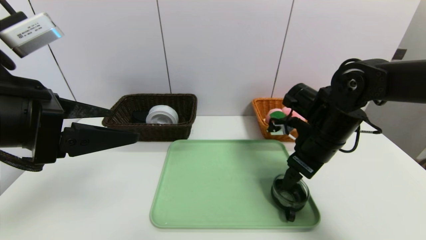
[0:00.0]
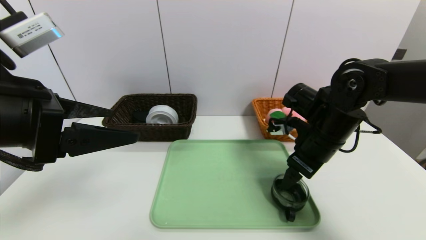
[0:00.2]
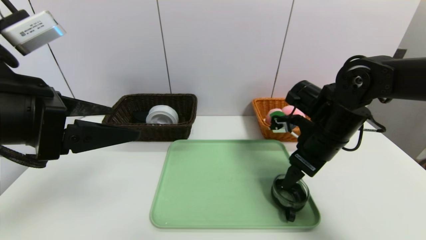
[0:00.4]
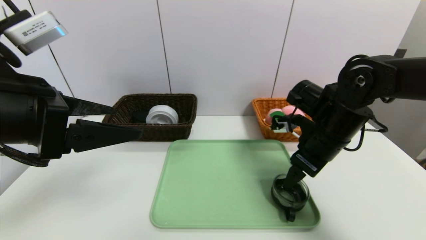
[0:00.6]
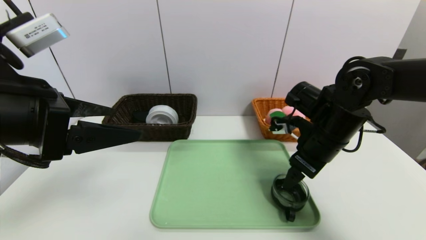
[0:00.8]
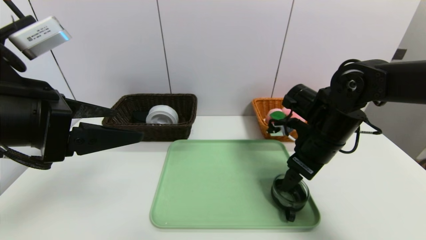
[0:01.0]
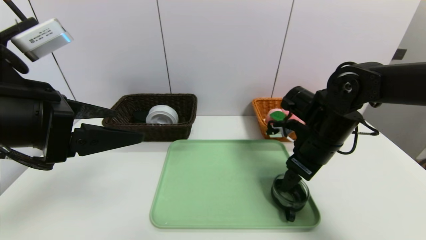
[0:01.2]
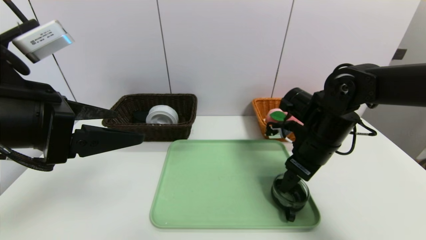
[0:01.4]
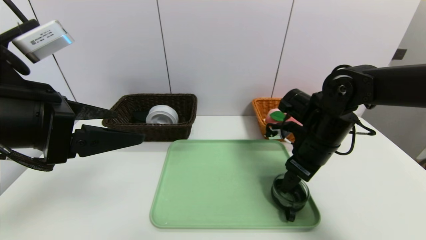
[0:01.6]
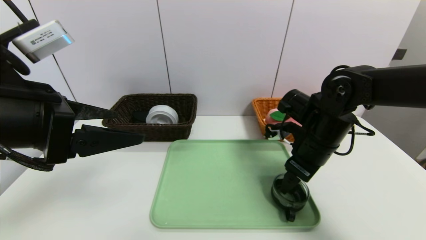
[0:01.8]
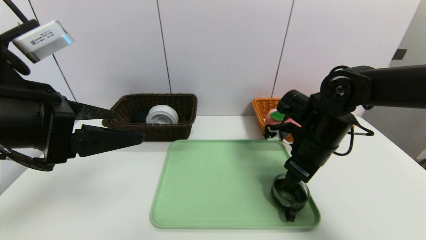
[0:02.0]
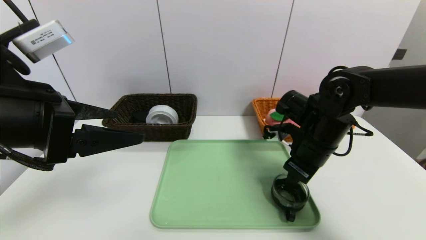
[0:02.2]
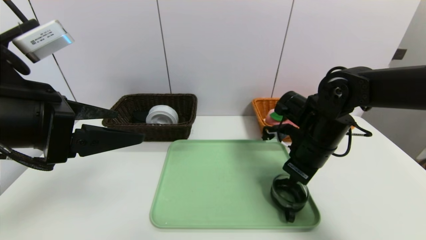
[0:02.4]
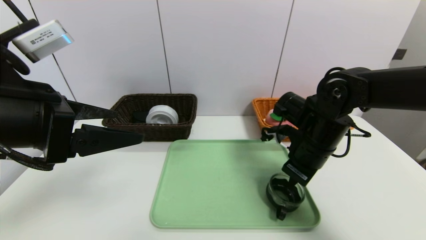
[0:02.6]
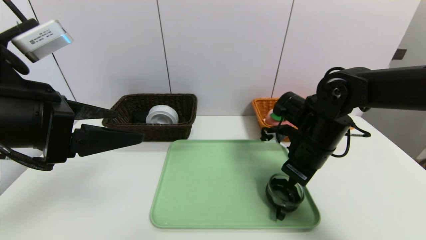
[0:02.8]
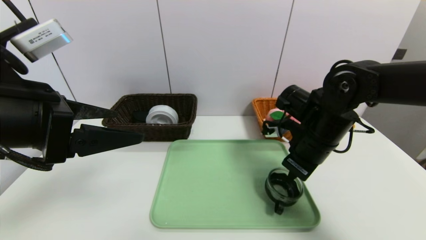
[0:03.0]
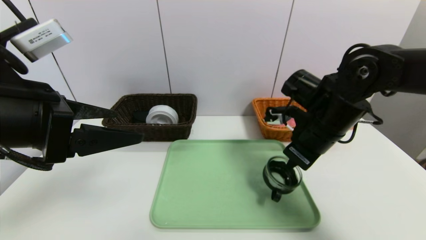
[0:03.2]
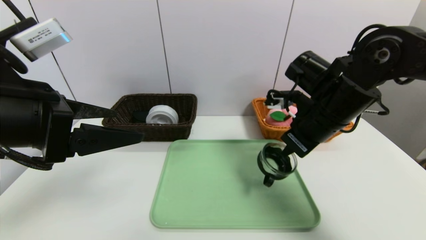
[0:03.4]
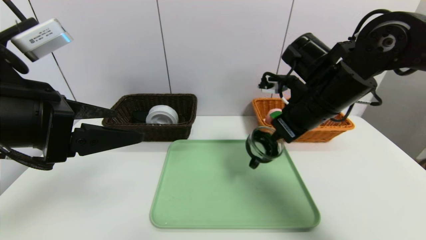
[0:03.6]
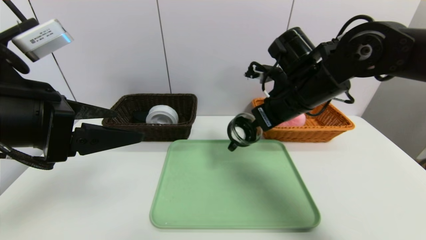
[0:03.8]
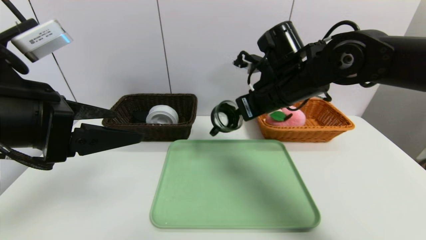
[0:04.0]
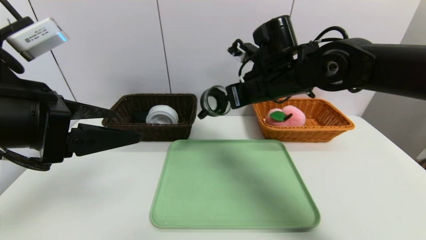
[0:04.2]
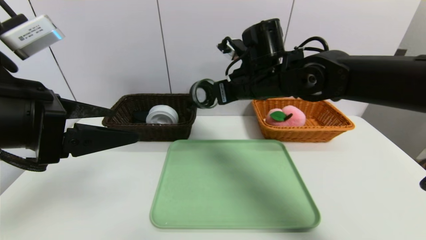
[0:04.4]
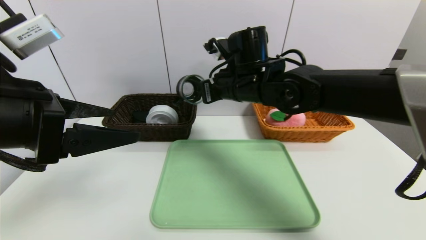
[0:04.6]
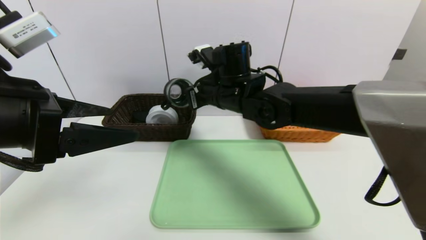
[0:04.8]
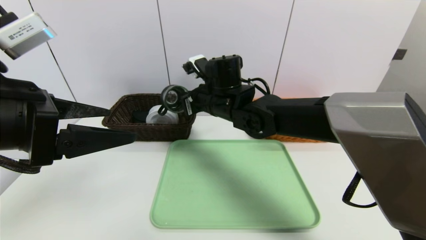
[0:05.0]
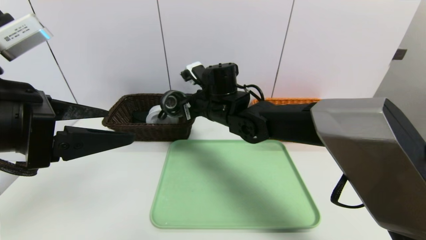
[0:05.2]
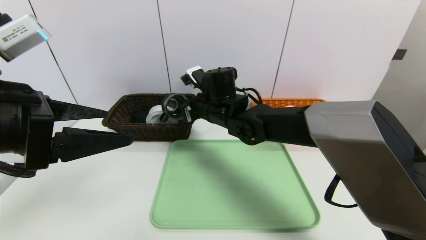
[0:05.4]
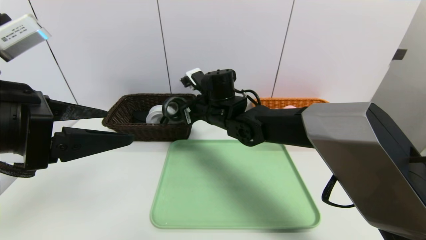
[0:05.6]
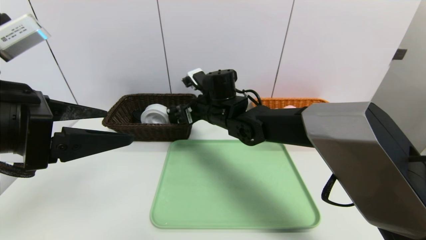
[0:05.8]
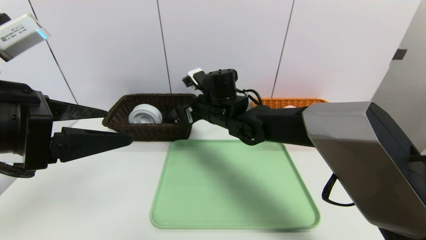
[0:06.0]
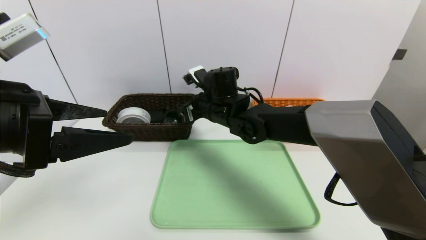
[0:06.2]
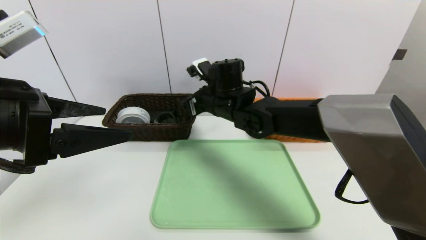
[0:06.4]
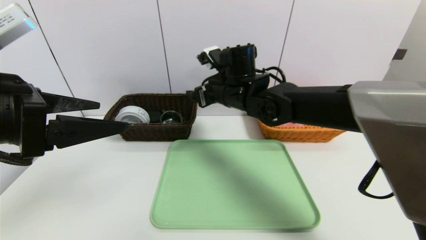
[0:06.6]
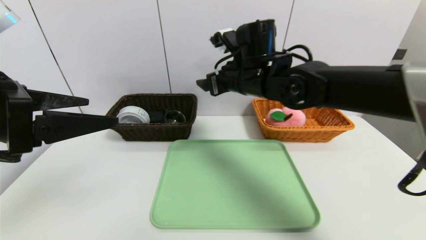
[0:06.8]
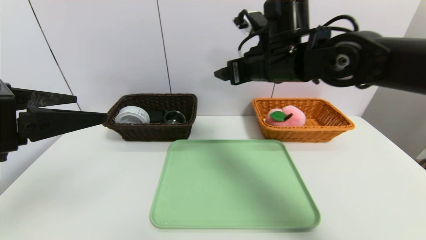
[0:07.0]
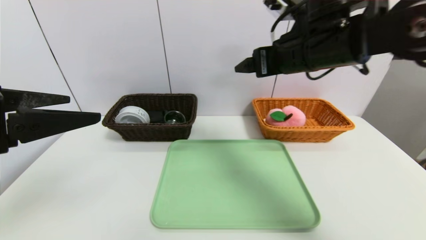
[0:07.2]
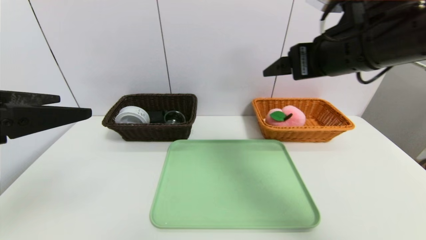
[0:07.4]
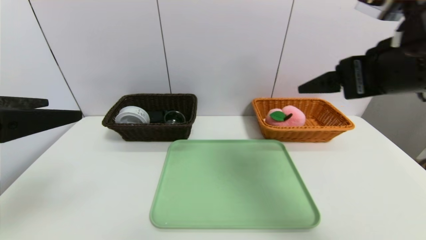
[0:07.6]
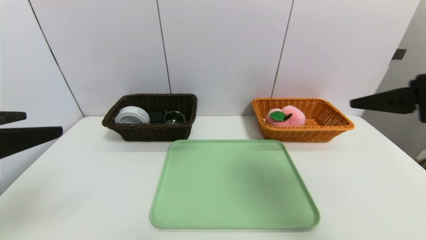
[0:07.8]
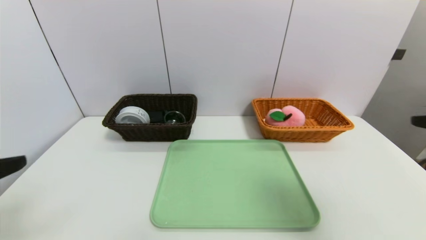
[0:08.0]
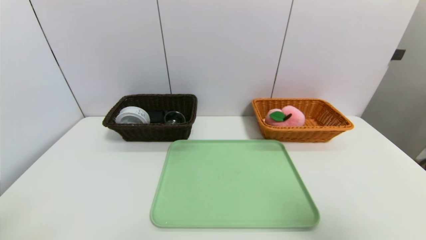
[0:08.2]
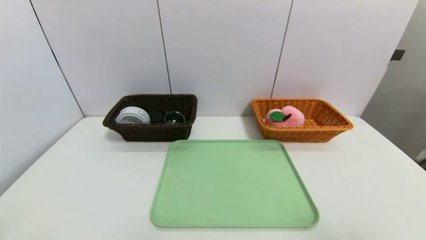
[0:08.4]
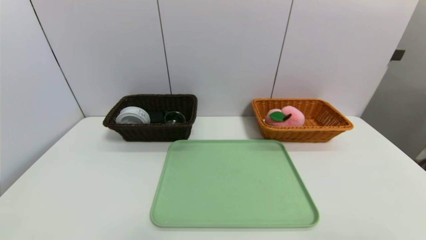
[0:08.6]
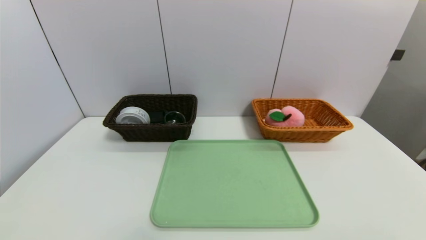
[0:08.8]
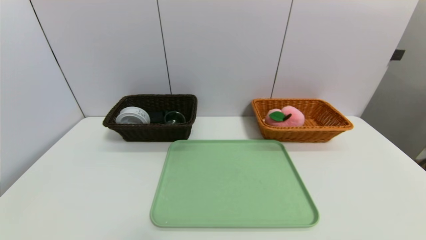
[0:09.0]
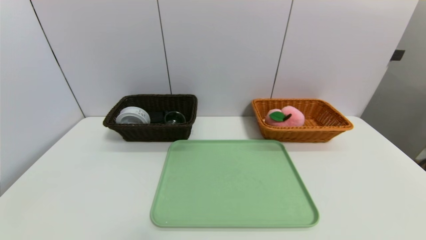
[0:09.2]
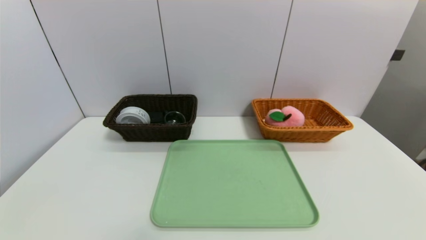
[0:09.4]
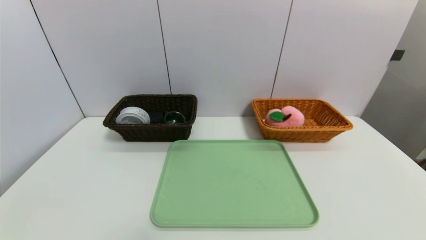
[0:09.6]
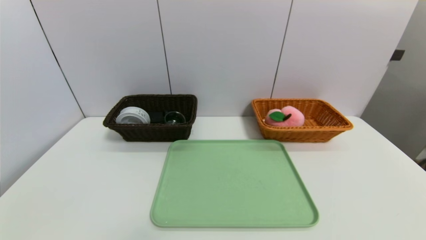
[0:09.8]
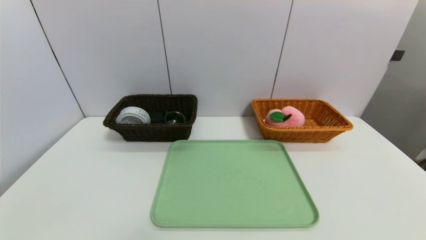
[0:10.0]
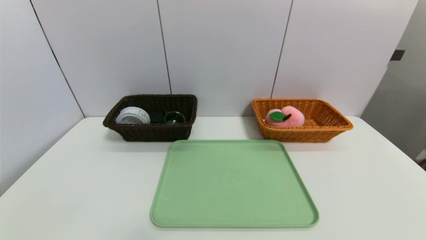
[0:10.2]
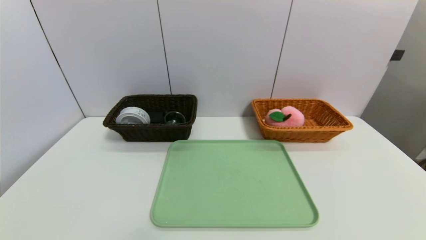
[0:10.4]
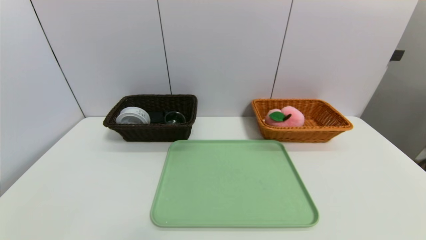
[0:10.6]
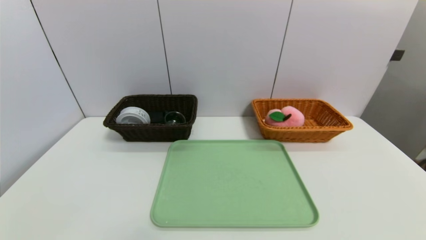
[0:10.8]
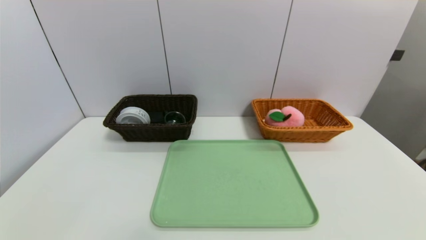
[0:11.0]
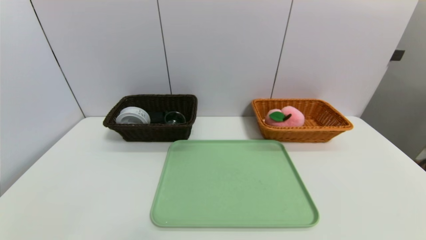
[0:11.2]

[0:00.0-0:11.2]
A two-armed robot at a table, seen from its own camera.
Task of the whole recording: place the food in the right basket with the right gripper, and place the non food items in the left basket with the left gripper.
0:00.0 to 0:01.6: Both grippers stay put.
0:01.6 to 0:03.2: The right gripper closes.
0:03.2 to 0:04.8: The right gripper is displaced to the left by approximately 15 cm.
0:04.8 to 0:06.4: The right gripper opens its fingers.
0:06.4 to 0:08.0: The right gripper heads backward and to the right, covering some 40 cm, while the left gripper moves backward and to the left, some 10 cm.
0:08.0 to 0:09.6: The two grippers go roughly 20 cm backward and downward.

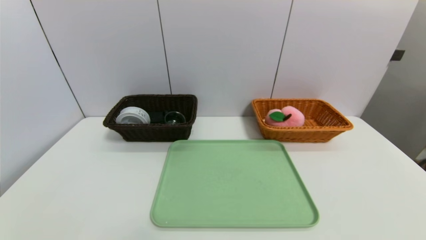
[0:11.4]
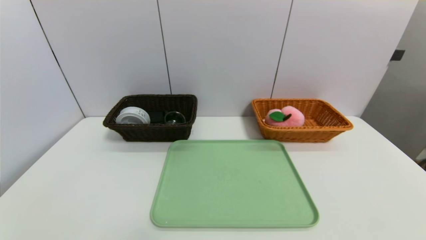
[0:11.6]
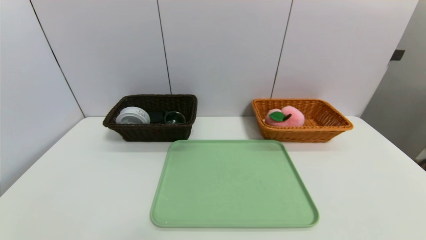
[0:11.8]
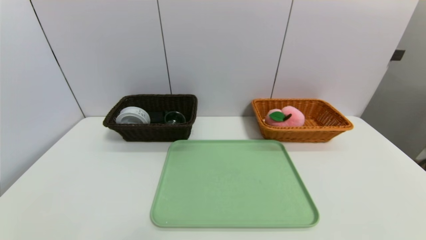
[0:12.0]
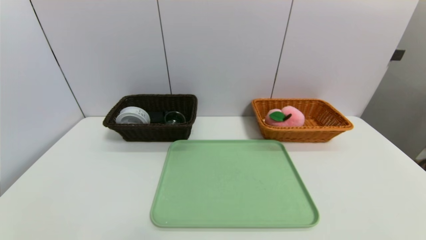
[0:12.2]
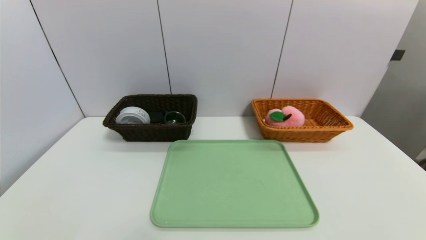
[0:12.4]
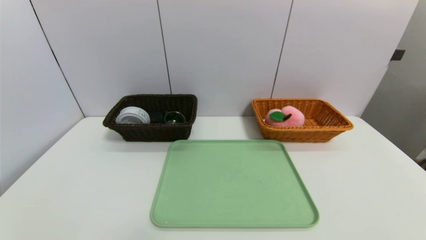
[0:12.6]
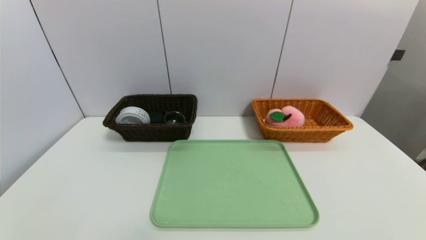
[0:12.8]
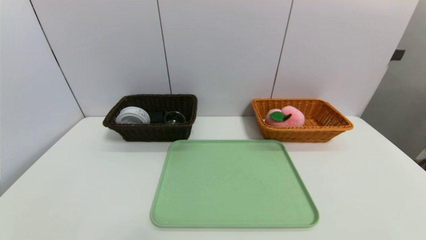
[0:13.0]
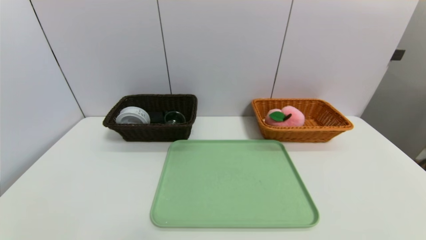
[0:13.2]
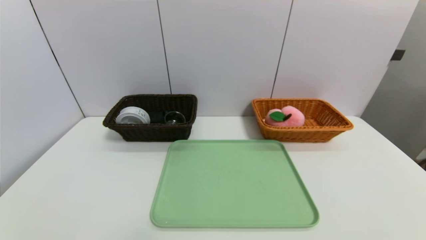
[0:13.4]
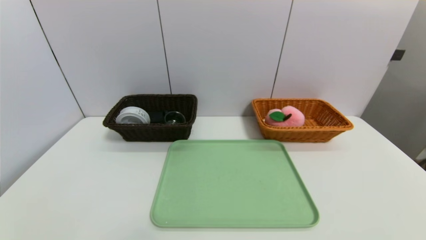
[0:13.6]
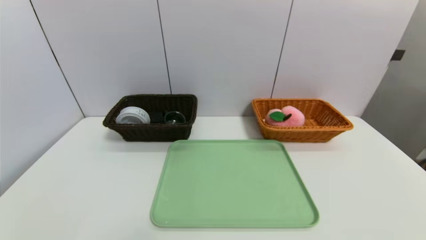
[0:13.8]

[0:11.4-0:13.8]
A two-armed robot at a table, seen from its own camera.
Task of the whole recording: place the food in the right basket with the right gripper, and place the non food items in the left basket with the left gripper.
0:12.6 to 0:13.8: Neither gripper changes place.
